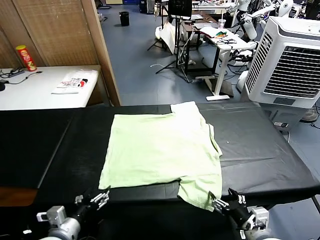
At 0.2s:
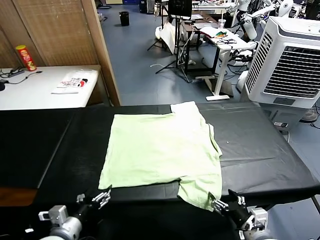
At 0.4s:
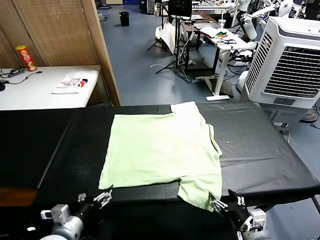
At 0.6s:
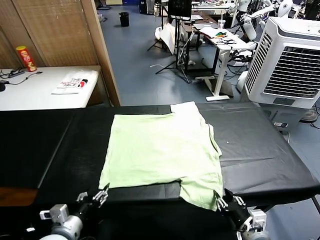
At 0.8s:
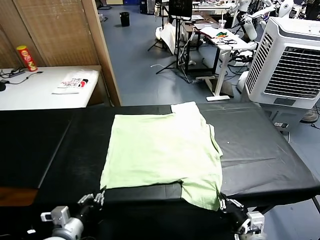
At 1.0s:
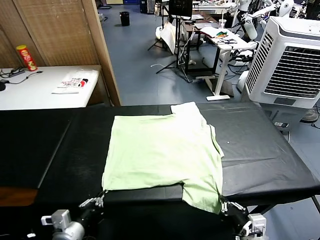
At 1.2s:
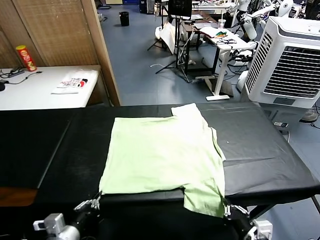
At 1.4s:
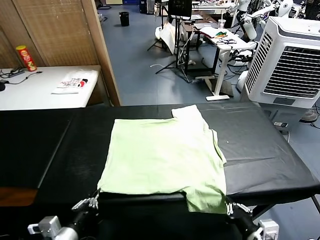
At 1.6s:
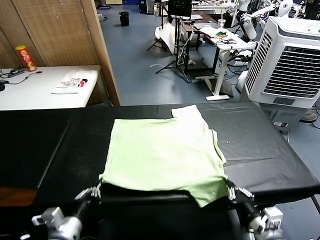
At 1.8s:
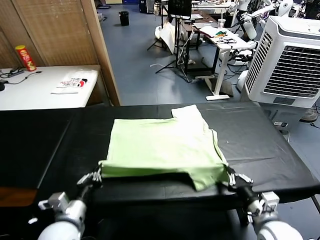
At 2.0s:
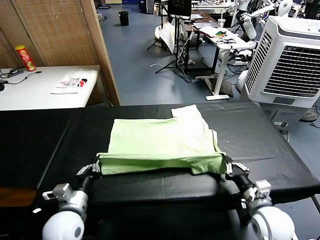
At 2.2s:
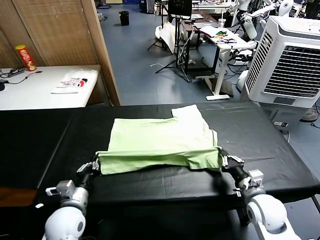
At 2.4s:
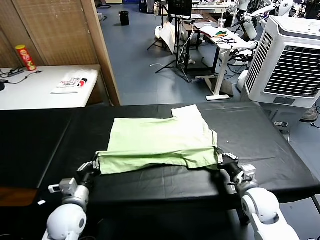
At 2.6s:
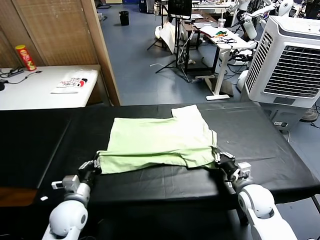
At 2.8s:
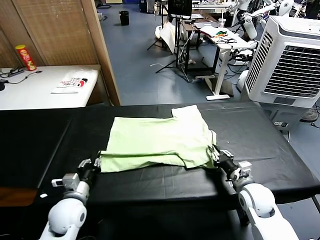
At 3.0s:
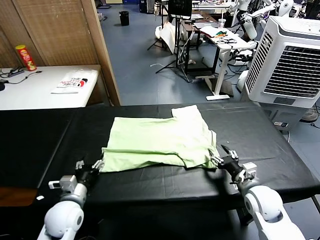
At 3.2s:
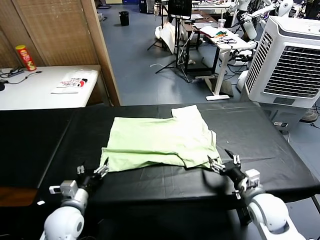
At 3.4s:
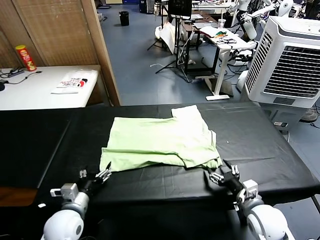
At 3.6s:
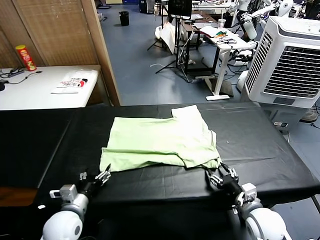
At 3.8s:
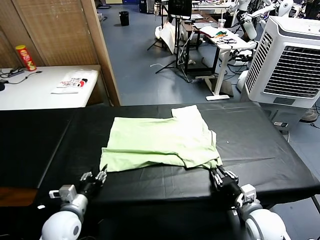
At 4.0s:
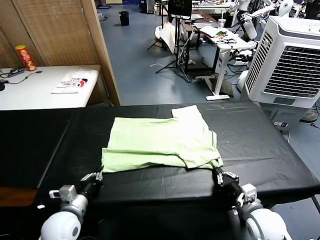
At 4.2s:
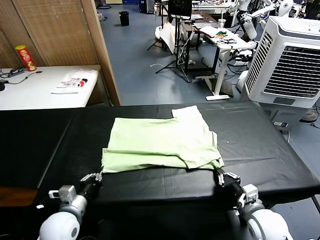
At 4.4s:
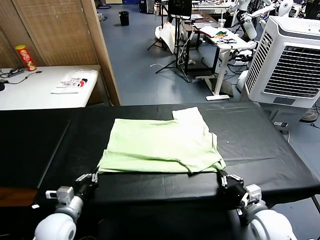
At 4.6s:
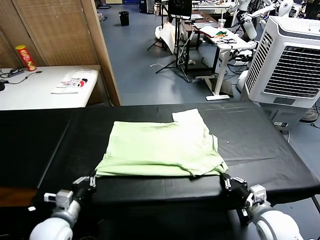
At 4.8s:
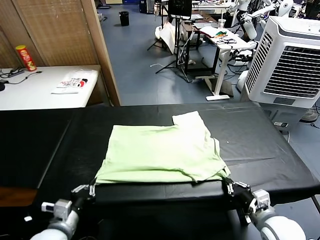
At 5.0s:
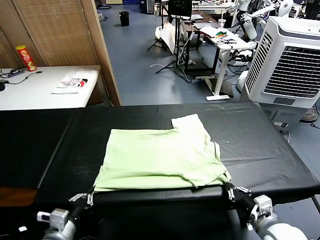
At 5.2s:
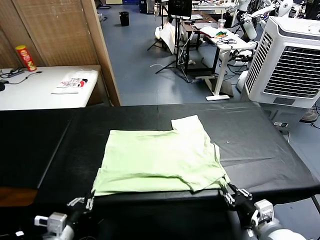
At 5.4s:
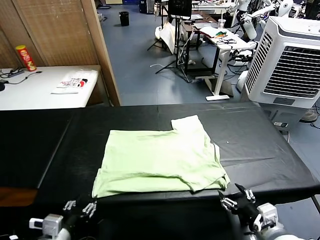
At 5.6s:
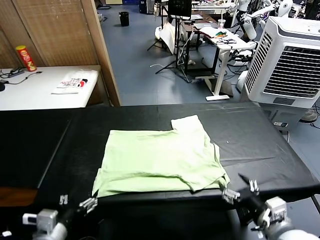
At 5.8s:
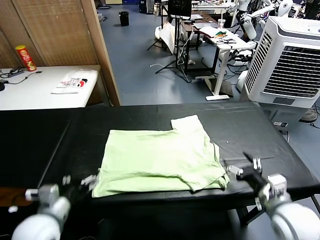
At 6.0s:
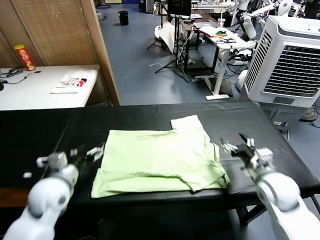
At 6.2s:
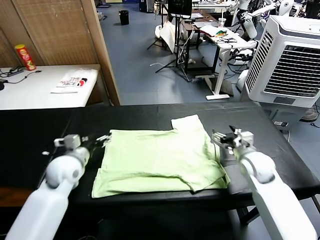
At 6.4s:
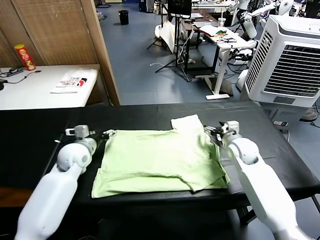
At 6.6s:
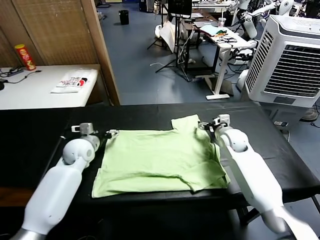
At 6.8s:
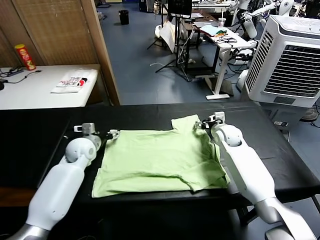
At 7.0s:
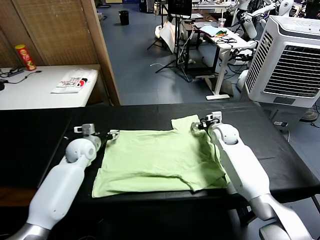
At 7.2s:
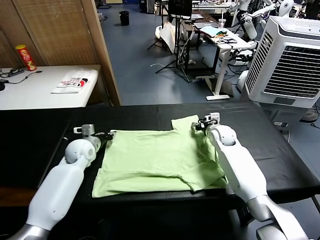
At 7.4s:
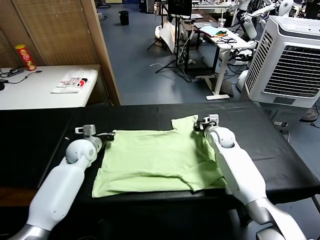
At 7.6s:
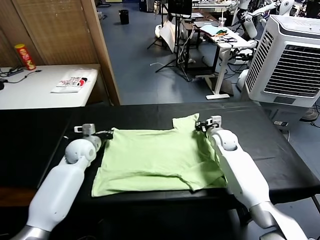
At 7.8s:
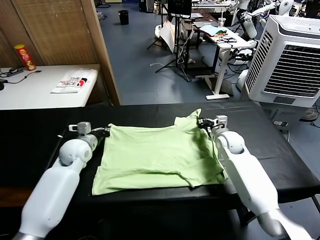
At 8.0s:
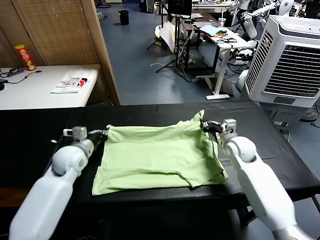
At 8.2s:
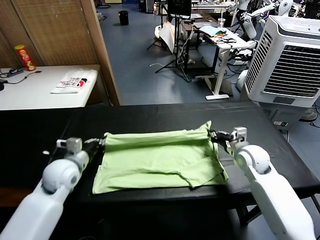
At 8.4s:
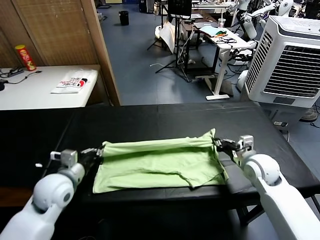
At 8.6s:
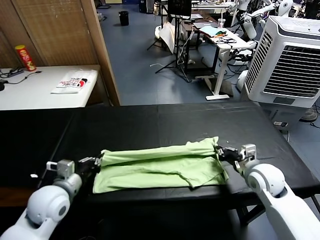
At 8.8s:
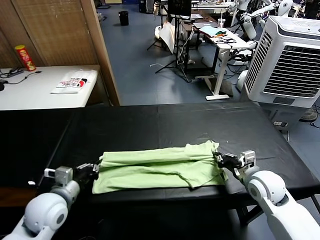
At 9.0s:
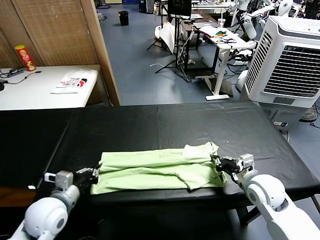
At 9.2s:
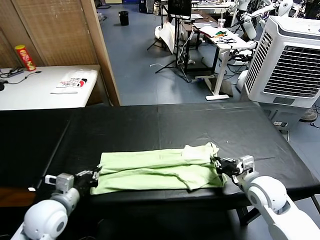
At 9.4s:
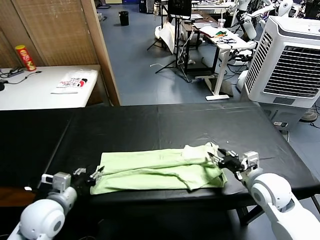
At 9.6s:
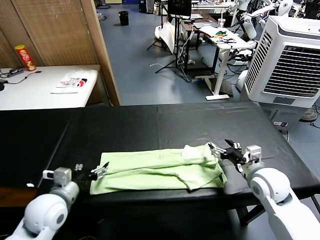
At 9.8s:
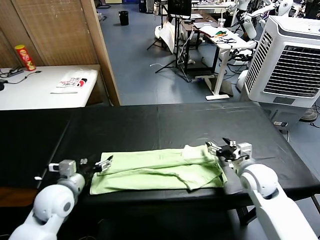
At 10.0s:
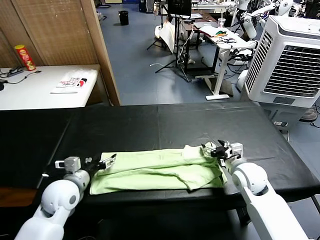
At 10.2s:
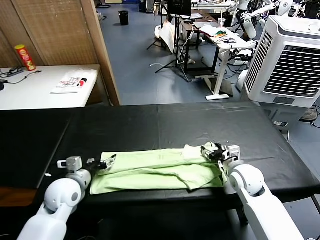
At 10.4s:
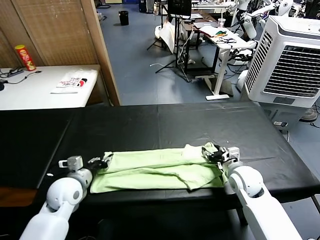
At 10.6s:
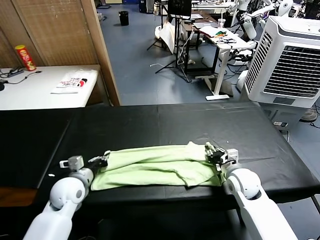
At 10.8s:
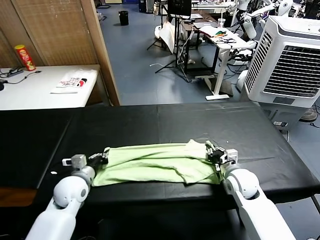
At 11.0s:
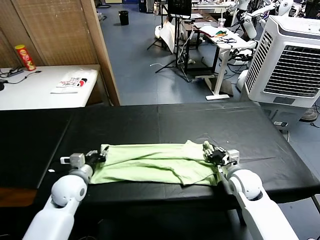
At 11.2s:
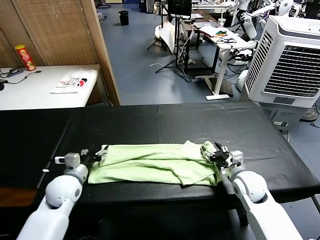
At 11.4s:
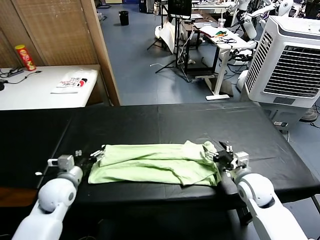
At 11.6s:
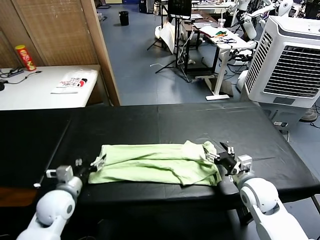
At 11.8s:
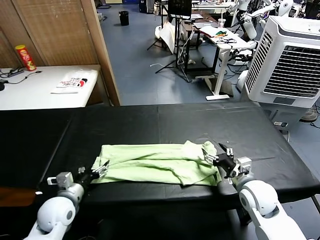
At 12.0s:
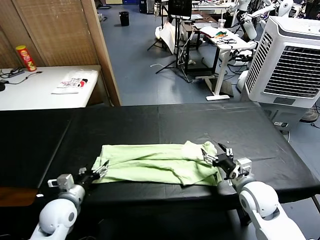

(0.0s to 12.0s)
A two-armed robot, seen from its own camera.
Task of the whole recording: fold and organize the clothes.
Step, 0.0s - 0.8s: use both grippers simultaneously to clamp the lower edge of the clothing fabric.
Step, 1.0s - 3.0s: use both grippers to drag the lower edge of the fabric forward and fold it over the upper edge.
Step, 3.2s - 5.4s: Drag the clothes downward with both gripper.
Step, 5.6s - 7.2s: use both grippers simultaneously to clamp the upper edge of the clothing fabric.
Step, 7.6s - 9.4s: use both grippers to drag the upper edge of the fabric backward and fold it over the lower edge.
1.6s - 3.0s: The grippers both shift forward by approximately 10 cm. The left gripper opens its fingers. Meanwhile the right gripper opens its fingers.
3.0s - 4.4s: The right gripper closes up. The left gripper closes its fingers.
4.4s - 6.0s: Both grippers travel together forward and upward, about 15 cm. The left gripper opens. Meanwhile the right gripper opens.
6.0s - 7.6s: Both grippers travel together forward, approximately 15 cm. The right gripper closes; the left gripper closes.
7.6s - 9.0s: The two grippers go some 20 cm backward.
9.0s - 10.4s: Both grippers move forward, approximately 5 cm. The left gripper opens; the right gripper opens.
10.4s - 12.0s: The grippers both shift backward by roughly 5 cm. The left gripper opens. The right gripper opens.

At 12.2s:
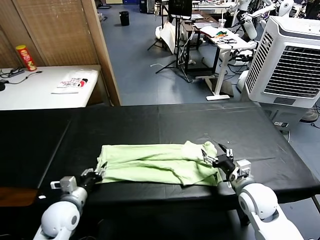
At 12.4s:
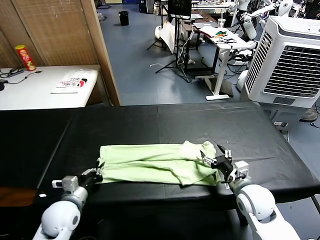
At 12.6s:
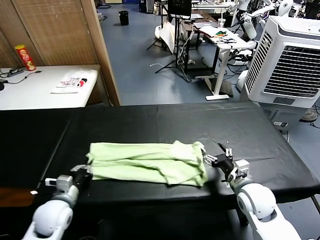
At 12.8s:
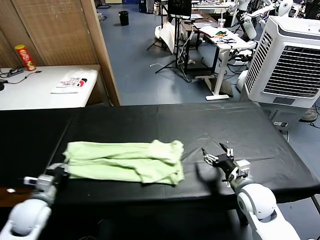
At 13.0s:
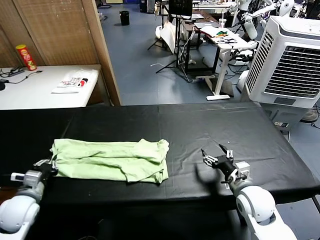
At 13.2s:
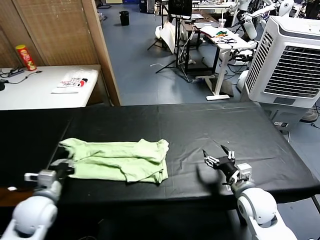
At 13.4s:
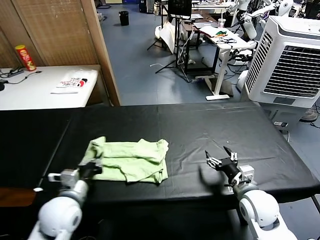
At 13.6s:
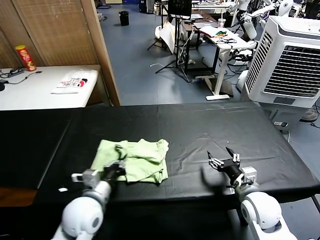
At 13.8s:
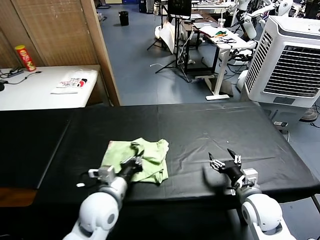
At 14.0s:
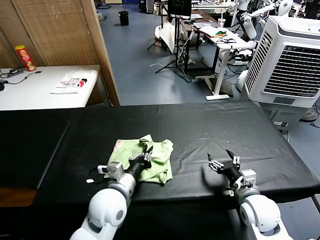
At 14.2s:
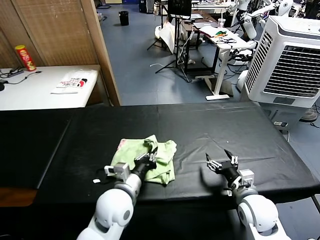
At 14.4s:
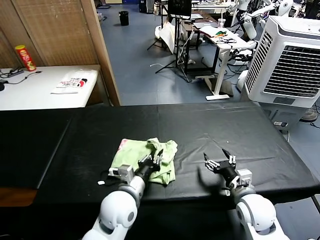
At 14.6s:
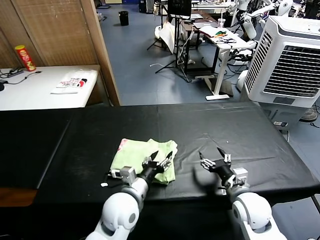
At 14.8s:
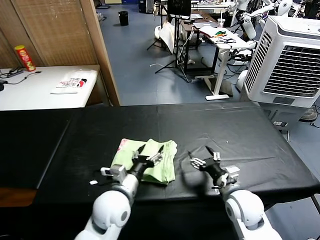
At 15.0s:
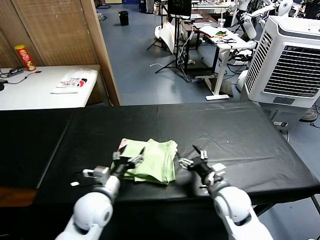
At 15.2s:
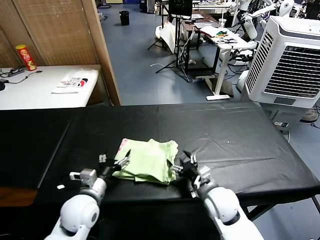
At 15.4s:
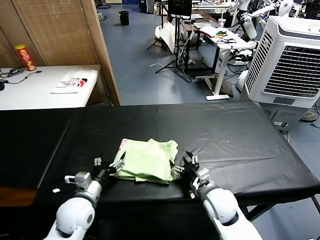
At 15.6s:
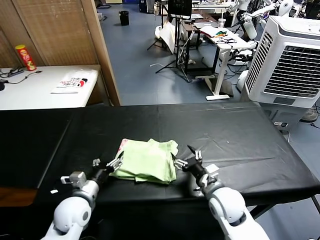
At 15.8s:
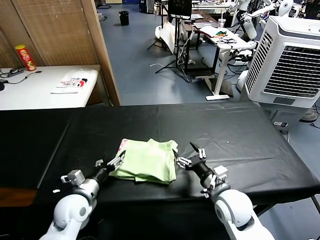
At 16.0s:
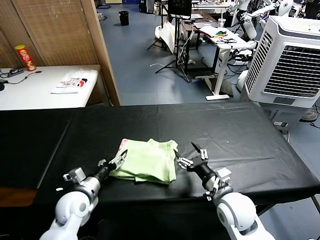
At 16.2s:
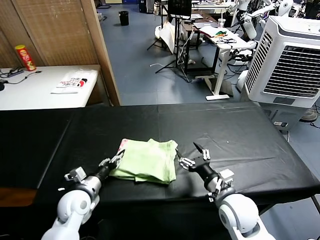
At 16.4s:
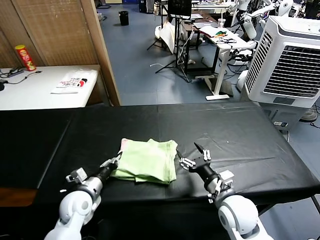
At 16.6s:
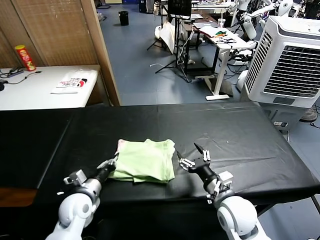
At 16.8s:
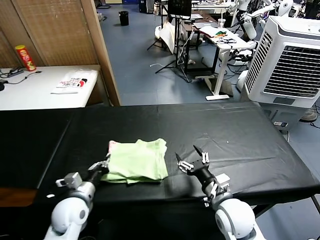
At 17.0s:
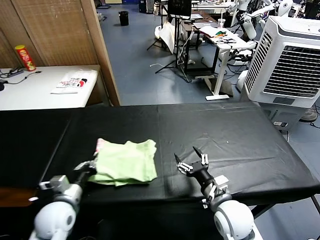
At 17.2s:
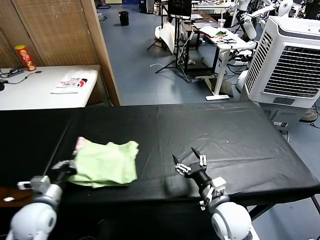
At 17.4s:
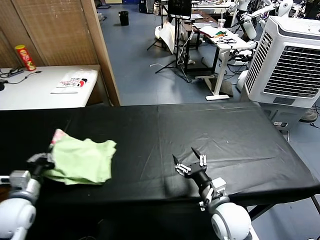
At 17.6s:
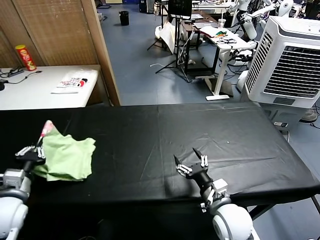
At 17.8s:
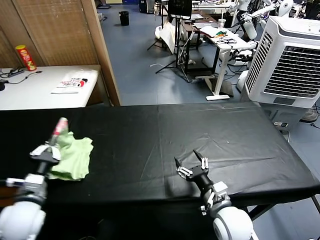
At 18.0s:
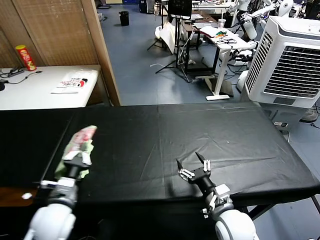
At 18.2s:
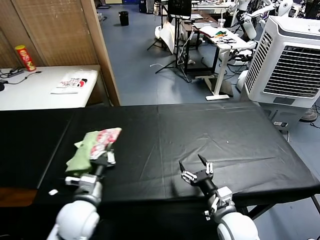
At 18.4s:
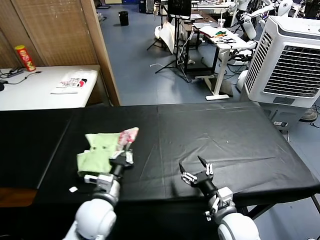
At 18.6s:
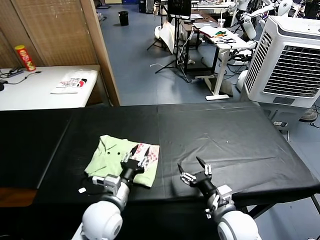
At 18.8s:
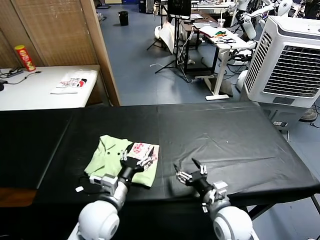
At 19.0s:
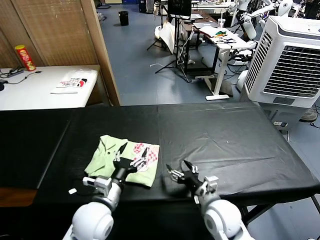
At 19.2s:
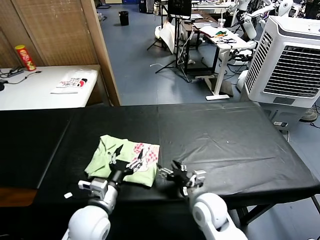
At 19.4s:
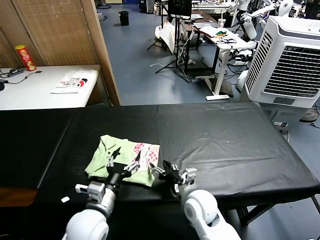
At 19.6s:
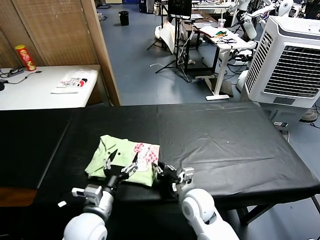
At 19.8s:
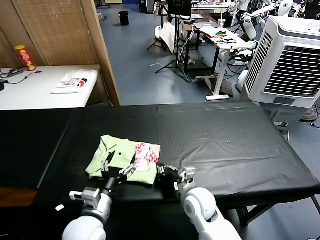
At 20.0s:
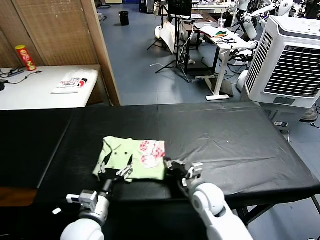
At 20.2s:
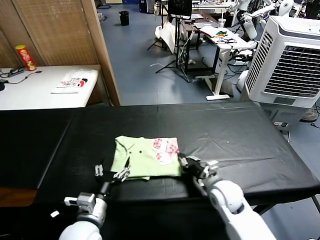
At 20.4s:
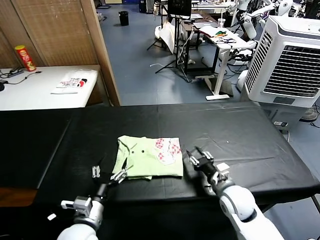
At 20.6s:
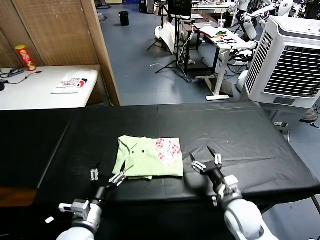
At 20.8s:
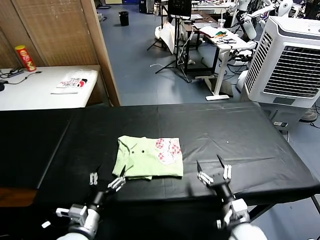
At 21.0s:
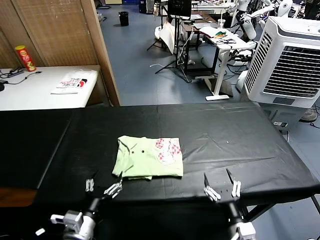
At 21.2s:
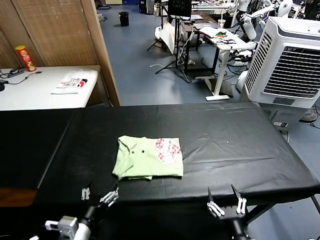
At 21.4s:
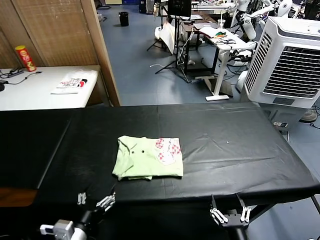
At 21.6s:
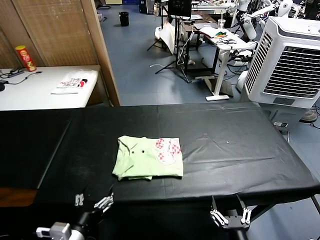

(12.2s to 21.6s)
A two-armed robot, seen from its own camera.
Task of the whole recording: fold and organize the clothes.
Step, 12.6s - 14.4s: use the left gripper to drag the left edge of the fabric to the left and folds it over the right edge.
Step, 14.6s - 18.4s: Flip the folded clothes over with left gripper.
Step, 18.8s - 20.2s: Drag the clothes to the center of the table.
12.2s - 13.8s: The left gripper shifts approximately 15 cm to the right and upward, and closes.
13.8s - 15.4s: The right gripper shifts some 10 cm to the left. The left gripper moves to the left and downward, some 10 cm, and opens up.
15.4s - 17.0s: The right gripper moves backward, about 5 cm, while the left gripper shifts roughly 5 cm to the left, and closes up.
17.0s - 18.4s: The left gripper goes some 10 cm to the right.
18.4s - 20.0s: The left gripper opens. Meanwhile the right gripper travels forward and to the left by some 10 cm, and closes up.
20.0s - 21.6s: The right gripper shifts about 25 cm backward, and opens up; the left gripper goes about 10 cm backward and to the left.
